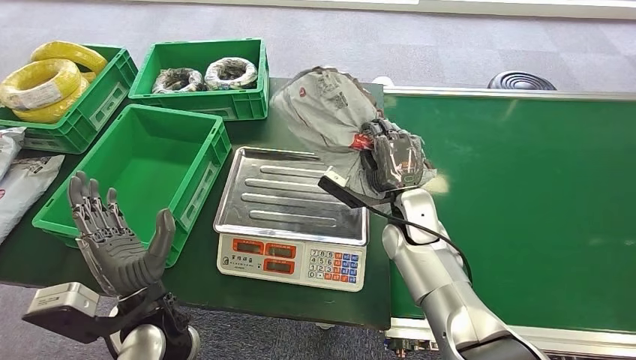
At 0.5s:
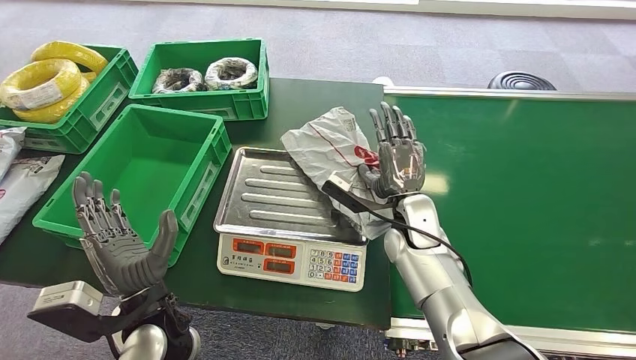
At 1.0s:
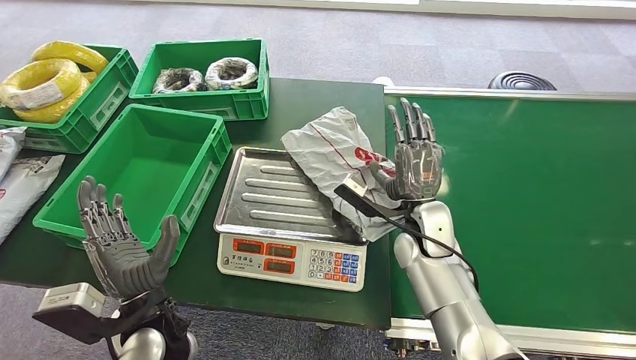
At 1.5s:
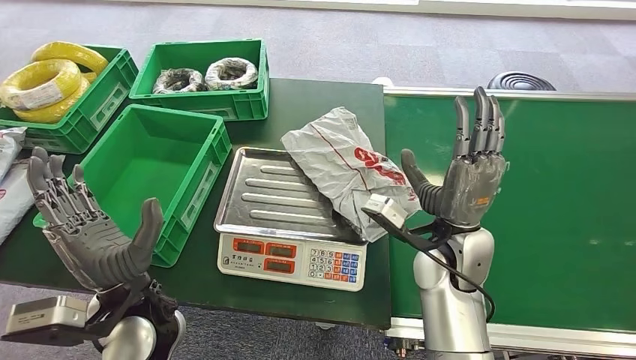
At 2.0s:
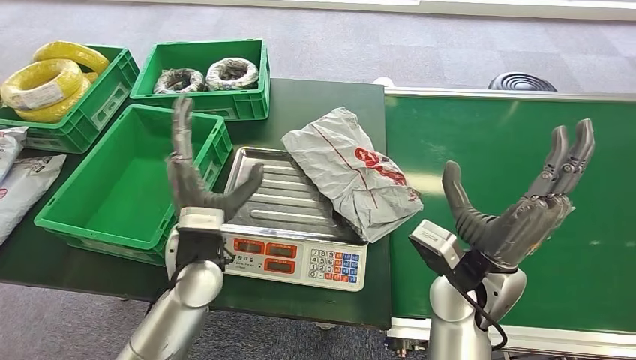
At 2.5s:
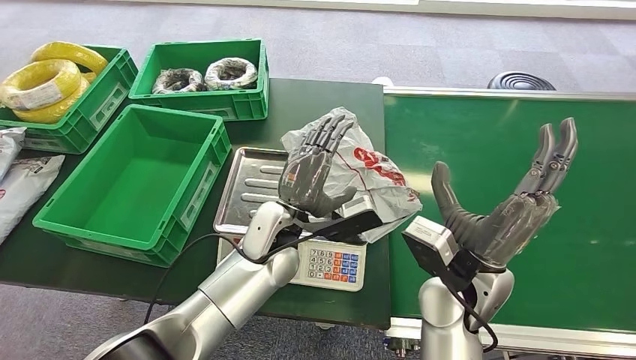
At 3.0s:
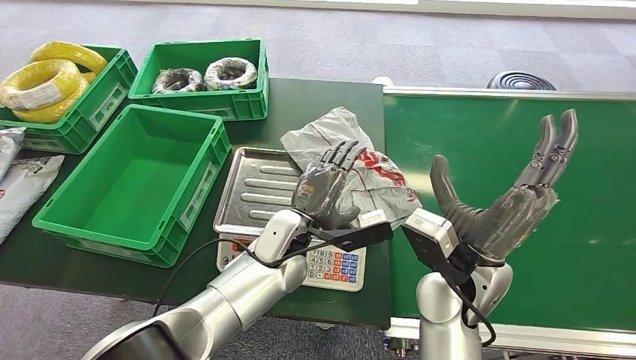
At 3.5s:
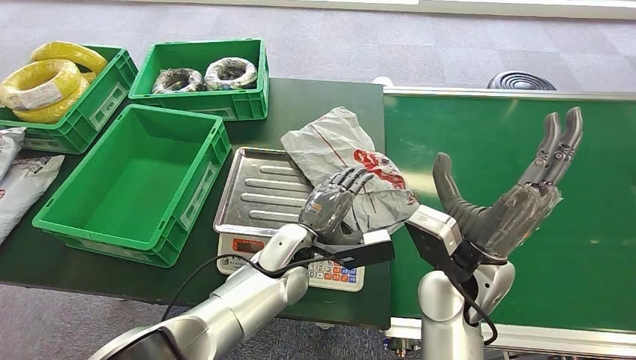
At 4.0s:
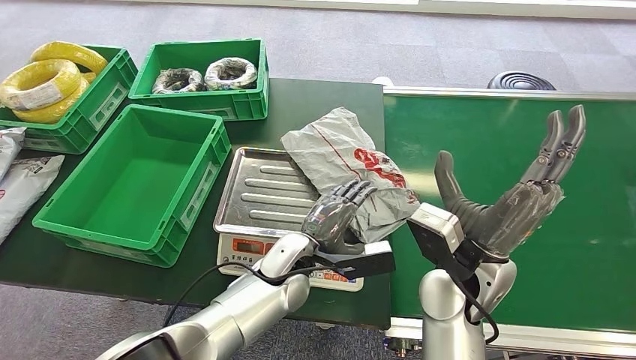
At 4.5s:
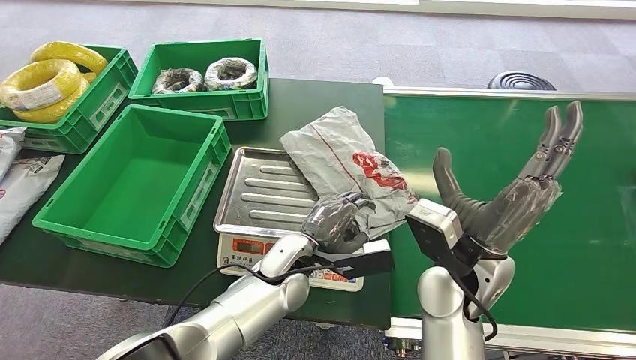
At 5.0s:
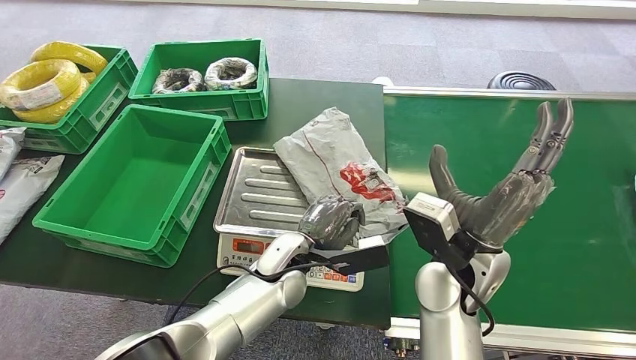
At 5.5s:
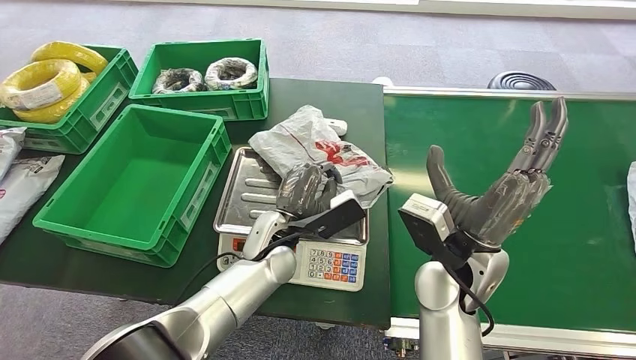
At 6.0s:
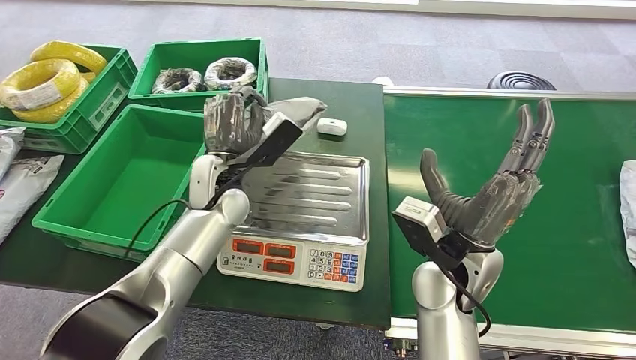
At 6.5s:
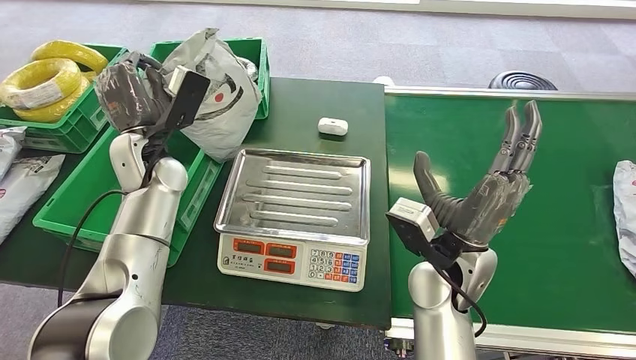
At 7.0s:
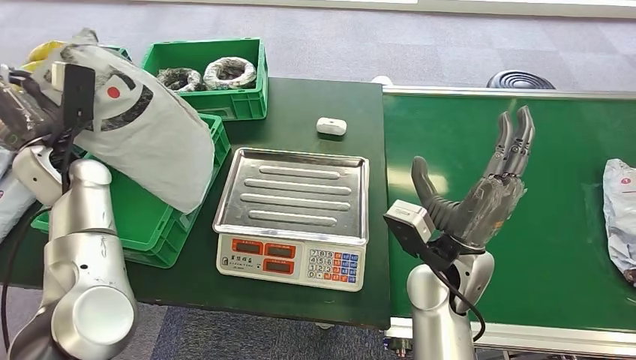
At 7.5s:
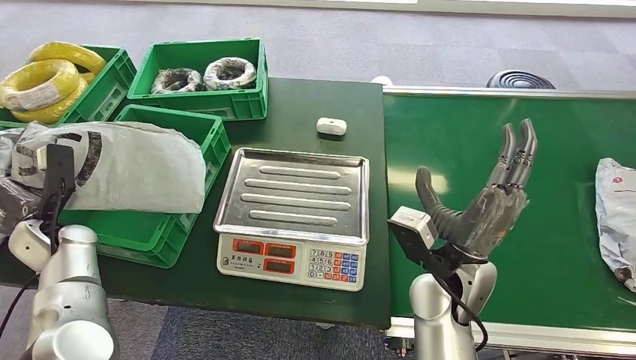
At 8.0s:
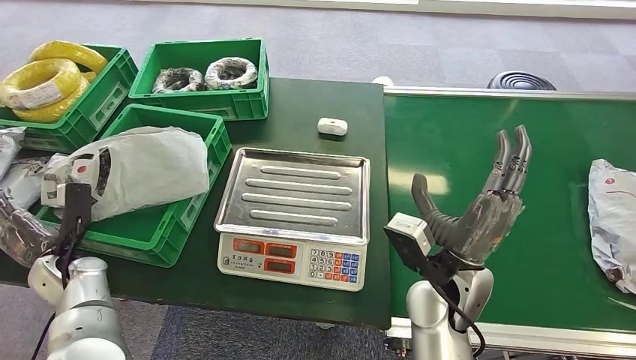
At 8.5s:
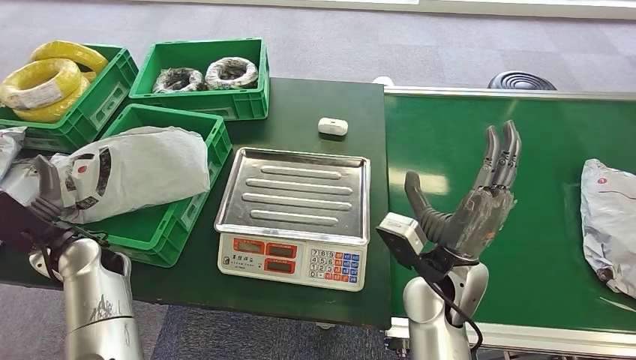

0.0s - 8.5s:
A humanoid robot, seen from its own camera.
Step, 2.0s - 5.5s: Pick up the package from the inbound machine.
Step, 7.0s - 8.5s: Place the package into the parcel locker.
2.0s - 4.0s: The left hand is displaced to the right and downward by approximately 15 cm.

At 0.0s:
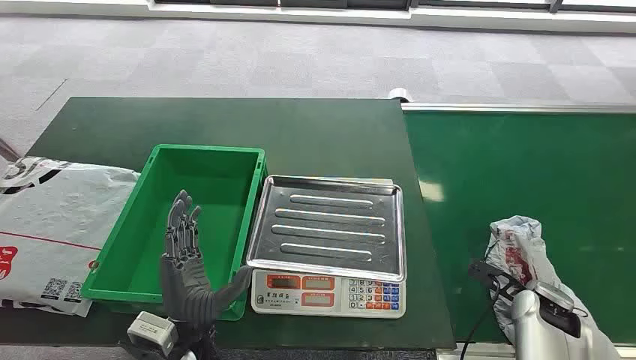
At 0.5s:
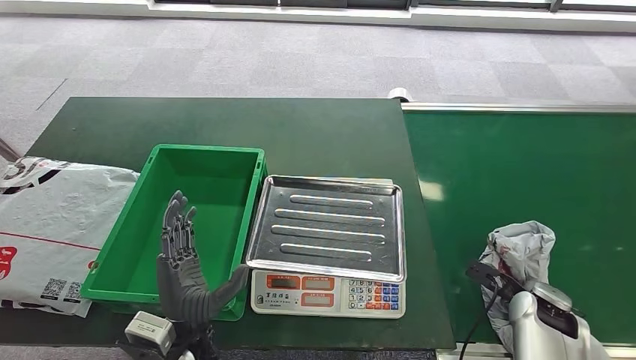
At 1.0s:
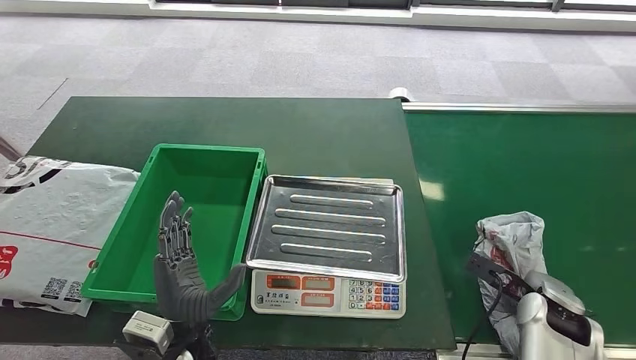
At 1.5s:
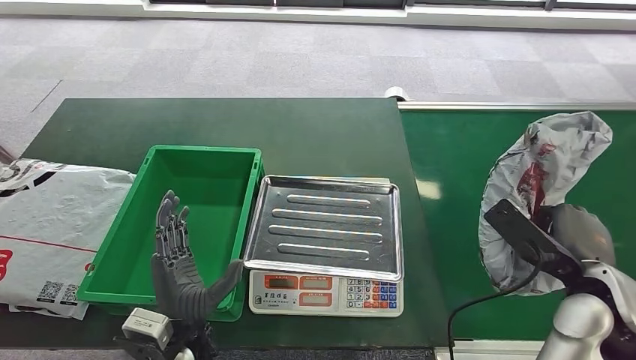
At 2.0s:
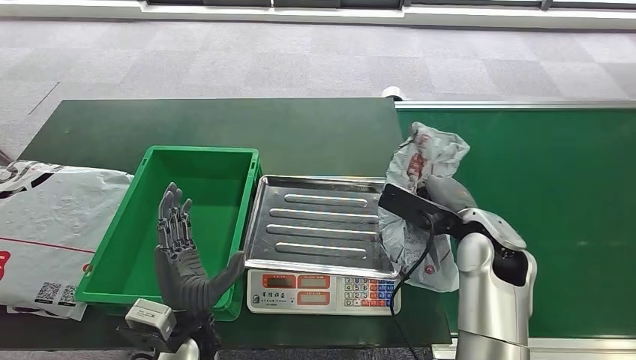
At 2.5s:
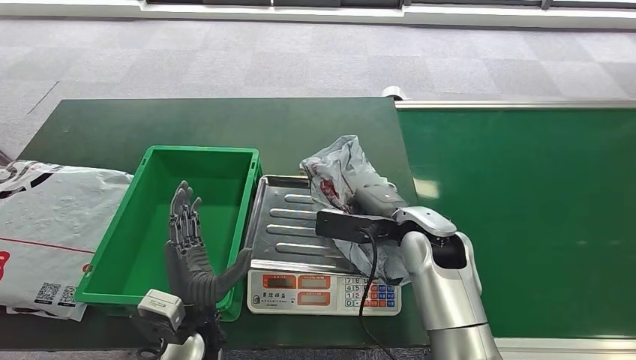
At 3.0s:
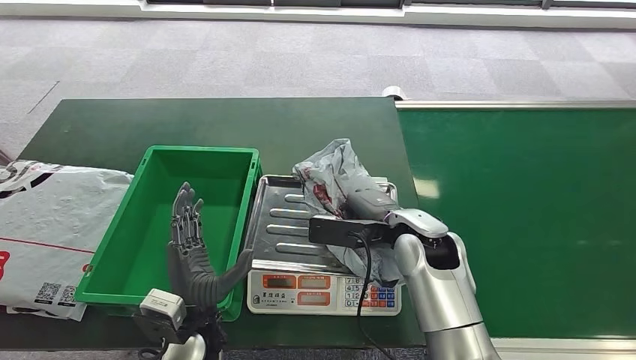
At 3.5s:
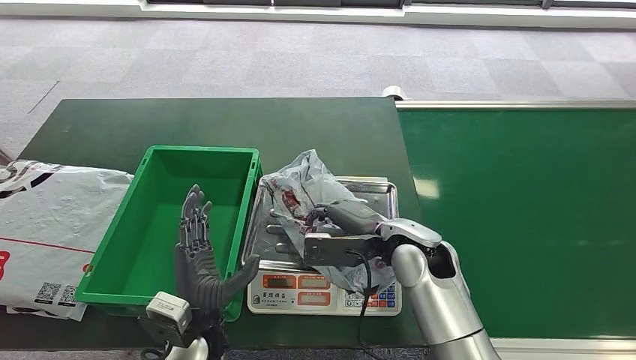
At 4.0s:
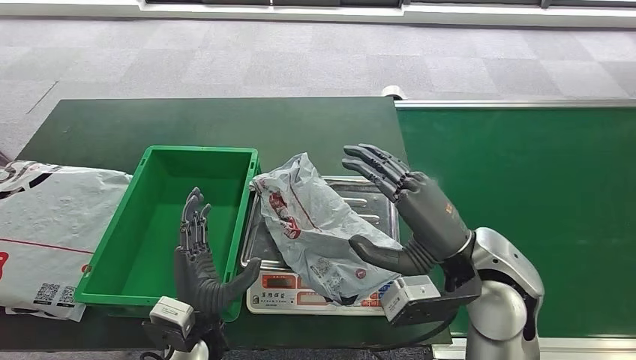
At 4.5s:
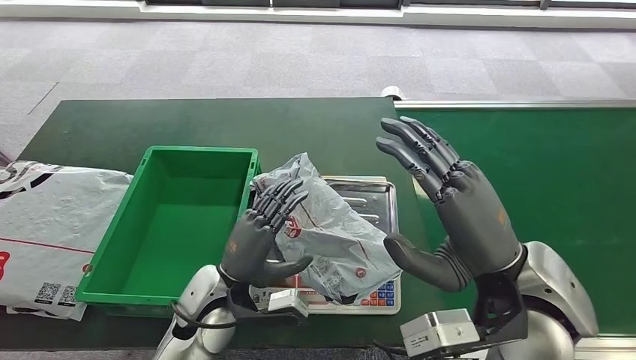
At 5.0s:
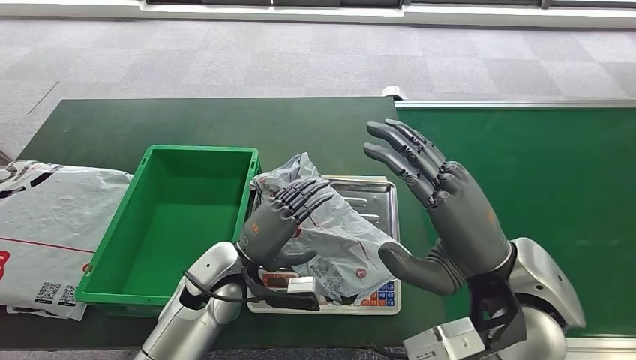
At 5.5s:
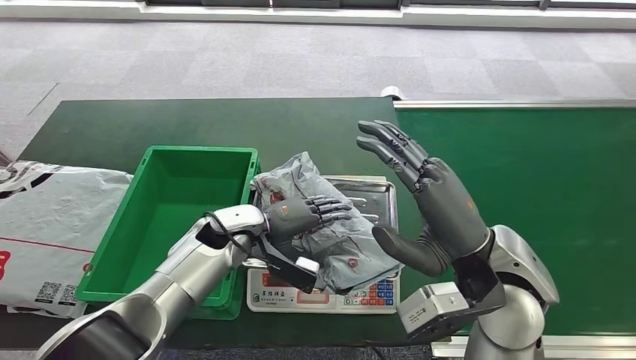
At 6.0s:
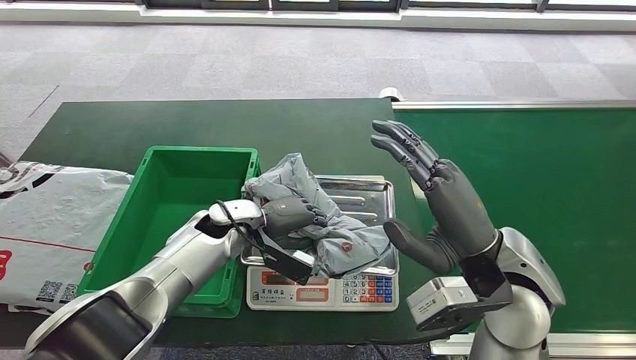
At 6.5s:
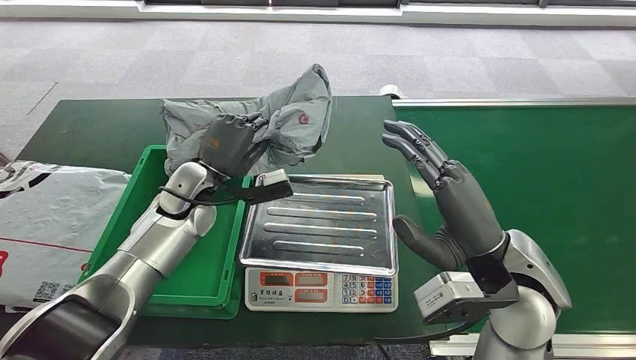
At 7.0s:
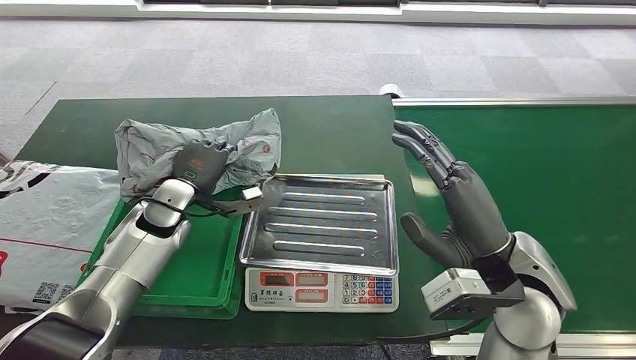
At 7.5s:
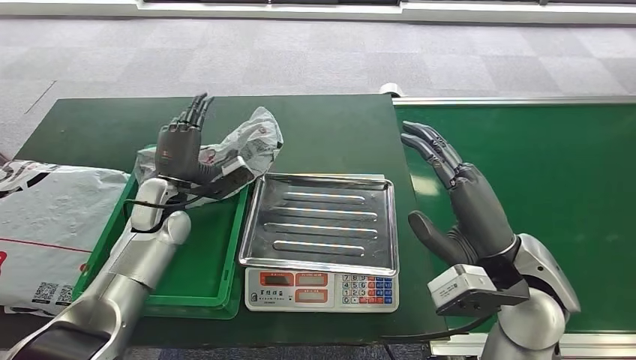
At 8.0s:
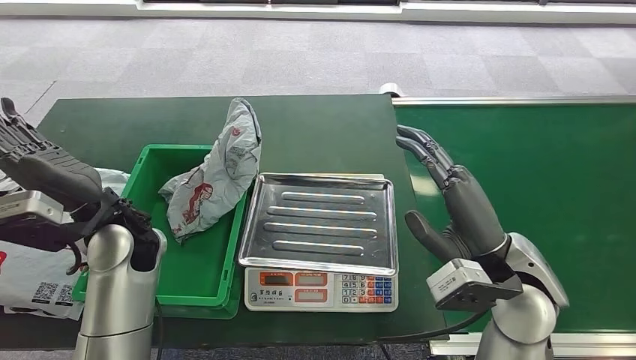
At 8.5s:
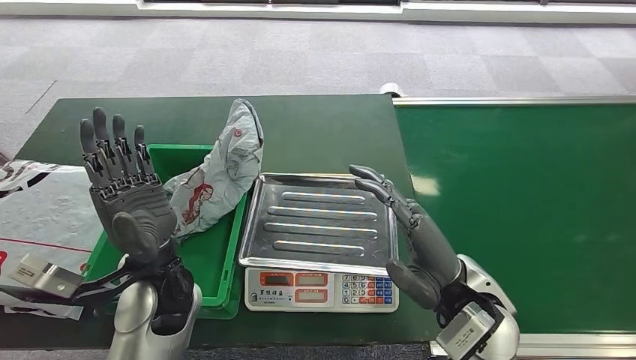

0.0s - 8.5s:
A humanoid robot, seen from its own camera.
Step, 0.0s - 1.5s: Pick up the package from the conveyor belt.
Step, 2.0s - 4.0s: Place the package onto the inbound machine.
Step, 4.5s - 6.5s: Pick up the package from the inbound machine.
Step, 7.0s - 8.5s: Place the package into the parcel locker.
